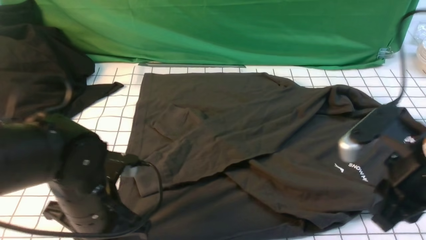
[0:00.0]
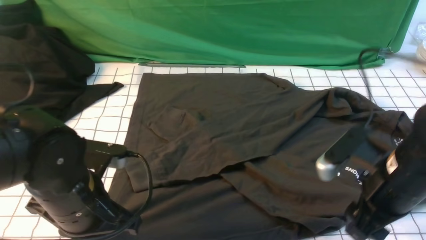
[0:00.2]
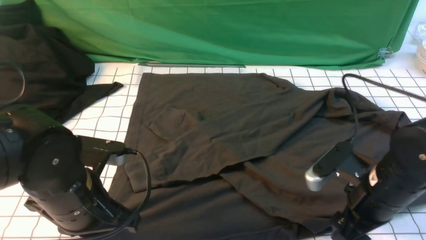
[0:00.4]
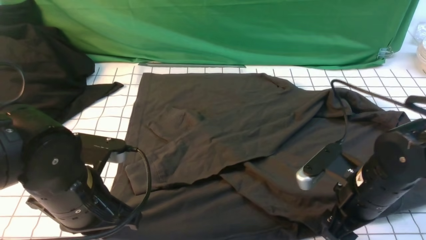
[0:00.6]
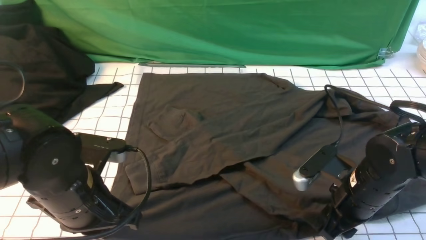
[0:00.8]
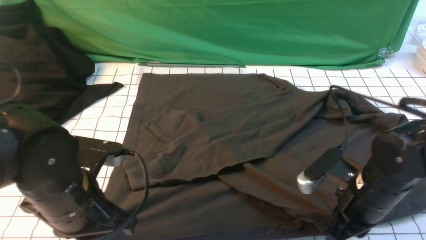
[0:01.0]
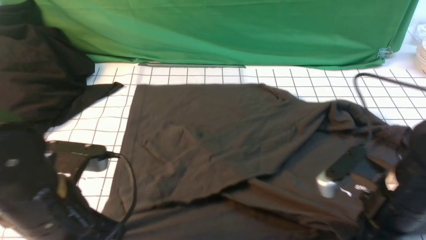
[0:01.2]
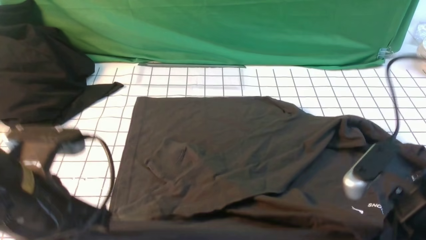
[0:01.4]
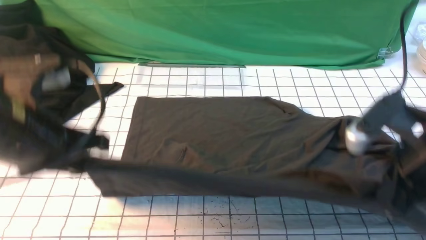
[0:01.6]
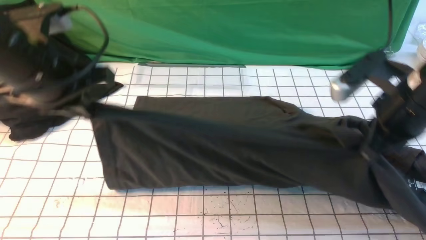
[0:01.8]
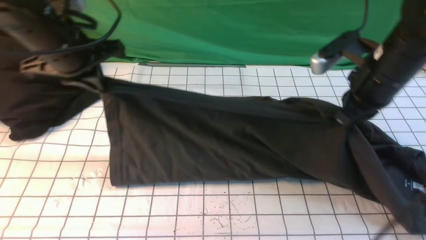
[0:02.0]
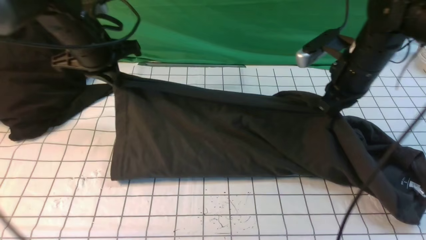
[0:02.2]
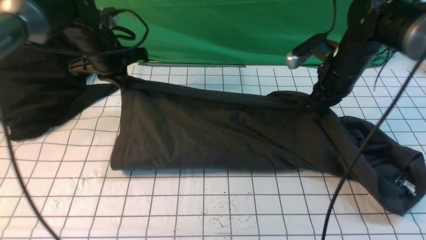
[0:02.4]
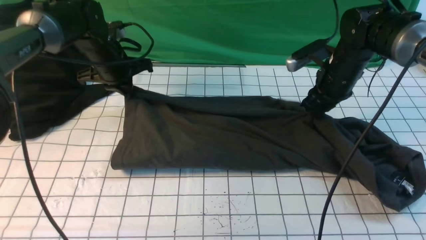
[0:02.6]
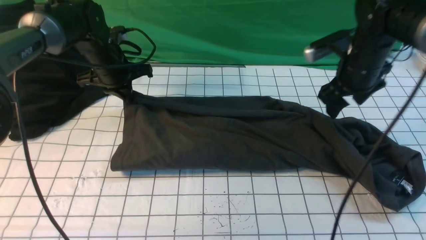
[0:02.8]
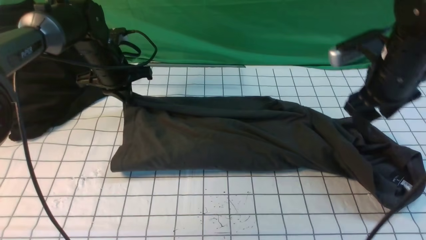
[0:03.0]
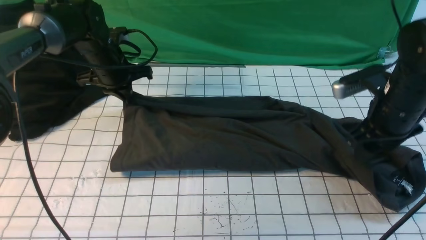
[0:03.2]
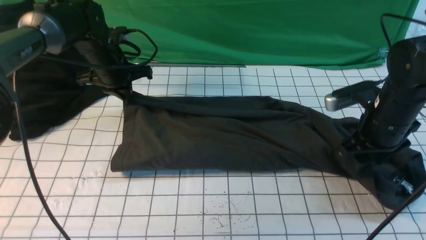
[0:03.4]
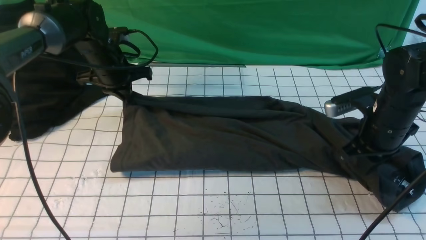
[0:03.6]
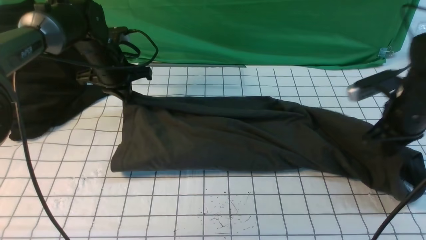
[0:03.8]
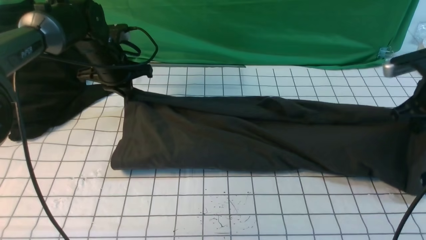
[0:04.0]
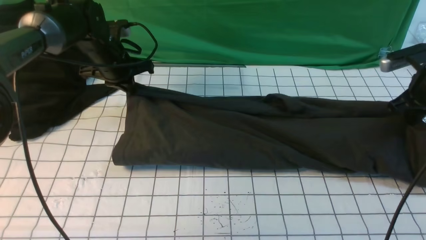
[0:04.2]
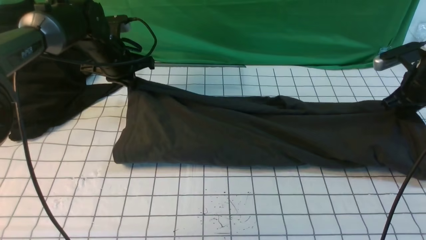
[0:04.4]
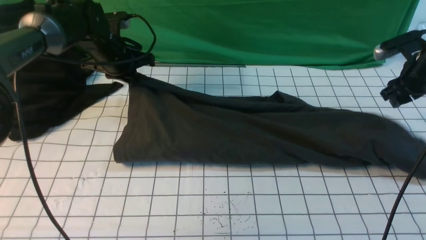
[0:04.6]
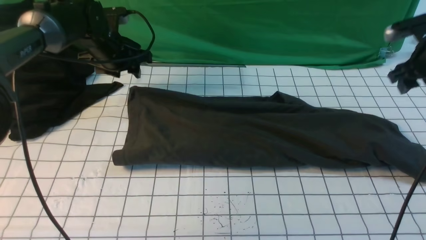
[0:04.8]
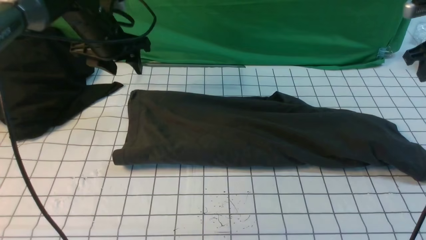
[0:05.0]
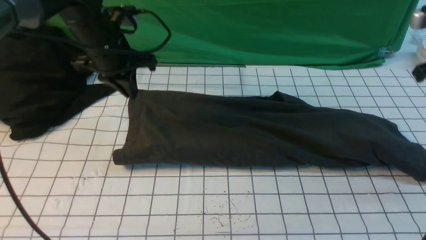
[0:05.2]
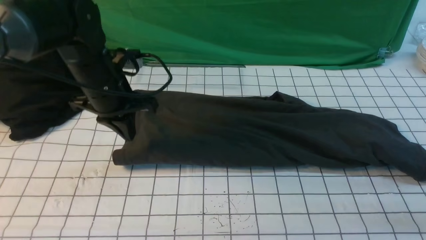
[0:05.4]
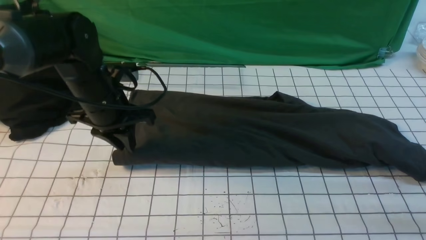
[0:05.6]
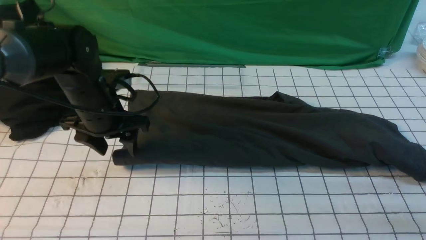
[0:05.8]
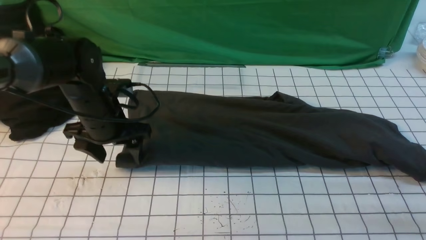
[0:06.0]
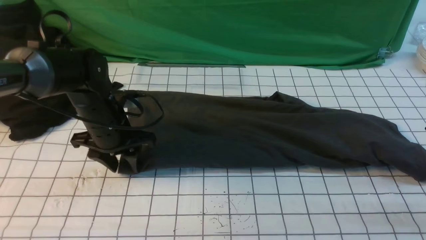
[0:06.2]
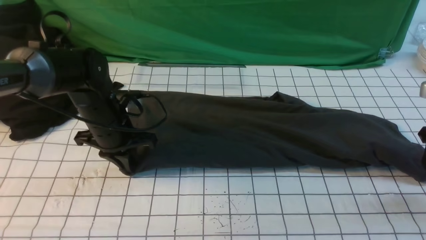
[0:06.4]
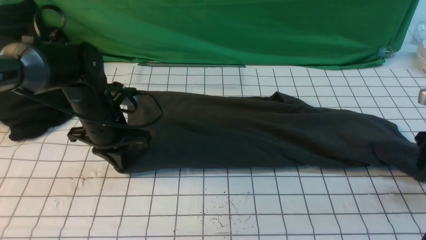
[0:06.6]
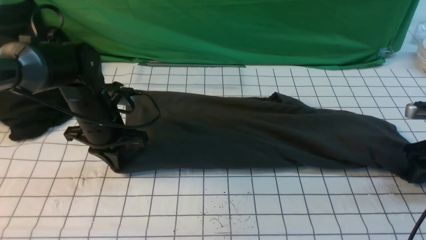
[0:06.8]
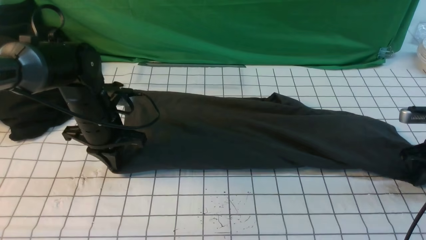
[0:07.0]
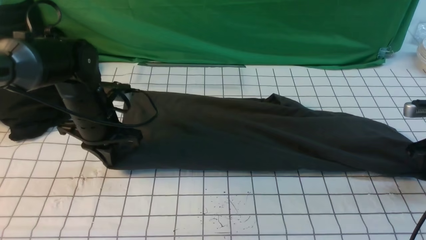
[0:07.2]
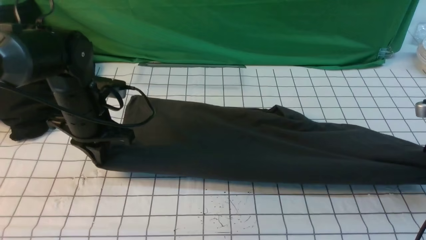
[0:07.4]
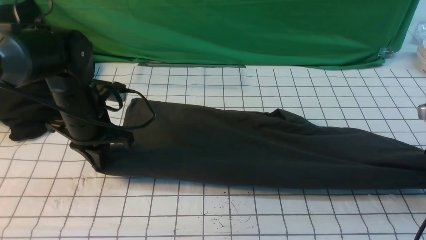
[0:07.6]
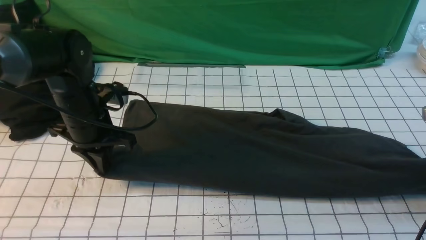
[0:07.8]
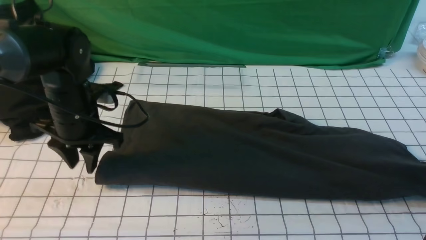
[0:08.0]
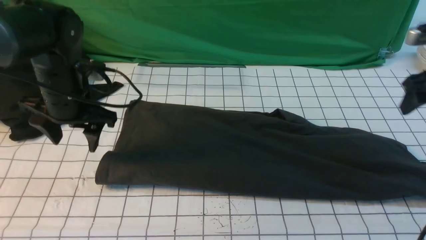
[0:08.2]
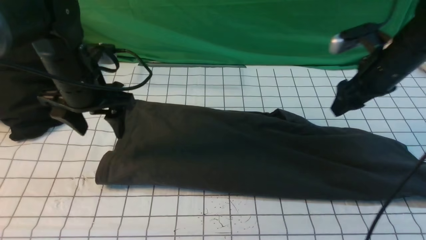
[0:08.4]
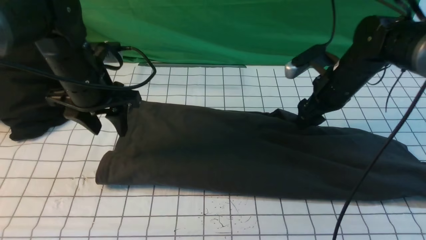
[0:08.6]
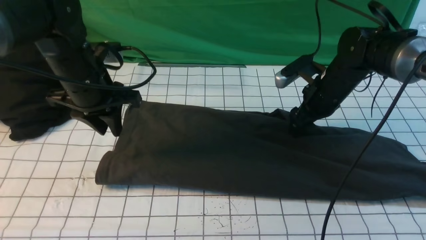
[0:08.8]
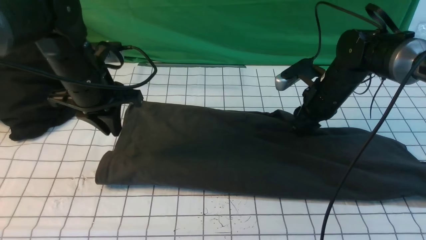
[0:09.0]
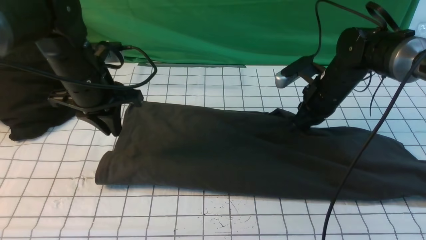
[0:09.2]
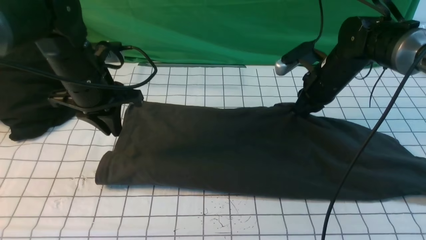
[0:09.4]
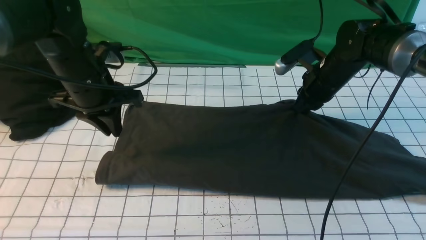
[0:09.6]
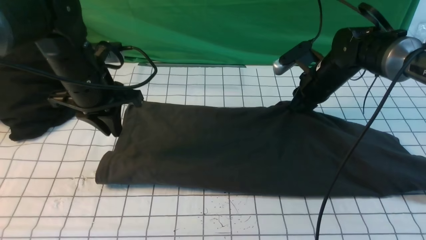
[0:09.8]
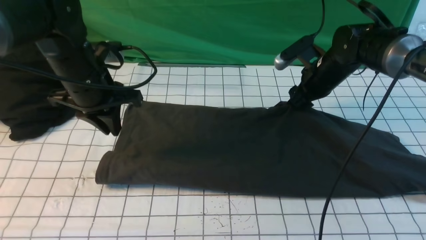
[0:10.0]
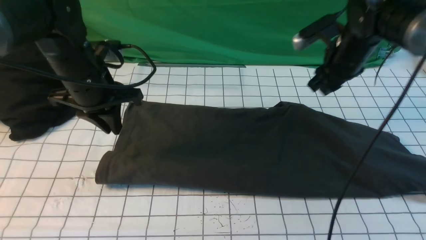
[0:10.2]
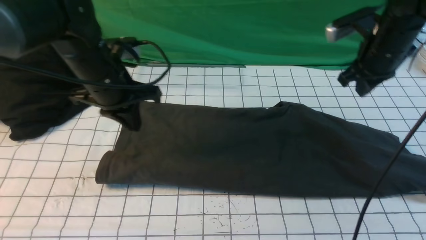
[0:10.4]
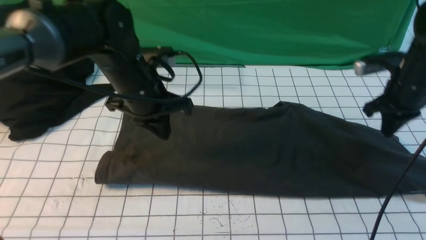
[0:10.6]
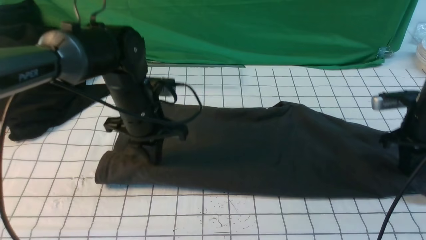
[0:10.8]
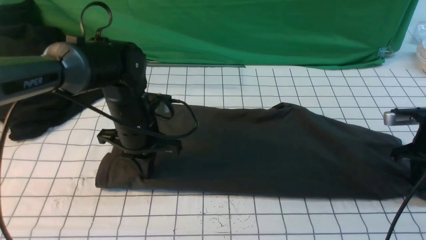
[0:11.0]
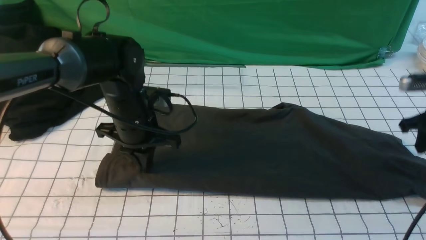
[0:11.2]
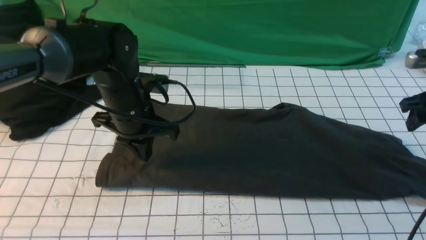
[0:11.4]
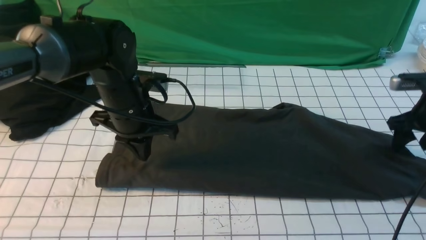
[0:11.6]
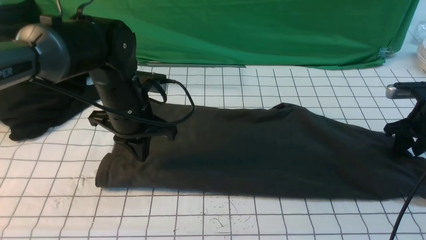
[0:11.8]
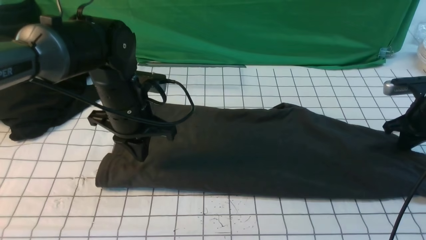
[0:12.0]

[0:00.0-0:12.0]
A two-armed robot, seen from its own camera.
Step, 0:01.4 to 0:04.8: use both arms to drag the lower edge of the fabric forward and fold it over the upper edge.
0:00.0 to 0:01.6: The right gripper reaches some 10 cm downward, then returns, and closes its fingers. Meanwhile the left gripper moves upward, some 15 cm.
0:01.6 to 0:03.0: The left gripper heads forward and downward, covering approximately 30 cm; the right gripper heads forward, covering some 15 cm, and opens.
0:03.0 to 0:04.4: The right gripper travels to the right and forward by some 15 cm, and closes its fingers.
0:04.4 to 0:06.0: Both grippers travel together backward, about 15 cm. The left gripper opens up.
0:06.0 to 0:07.6: The left gripper closes. Meanwhile the right gripper moves downward, about 5 cm, and opens and closes again.
0:07.6 to 0:09.0: The left gripper moves upward, approximately 5 cm, and opens, then closes once more; the right gripper goes some 20 cm to the left, and opens, then closes once more.
0:09.0 to 0:10.4: The right gripper travels to the right and upward by approximately 10 cm.
0:10.4 to 0:12.0: The right gripper shifts some 15 cm to the right and downward, and opens, then closes again.

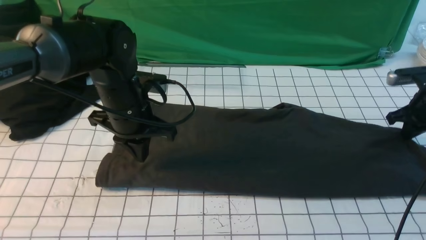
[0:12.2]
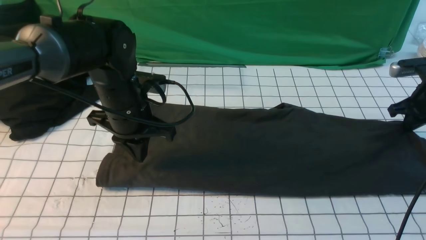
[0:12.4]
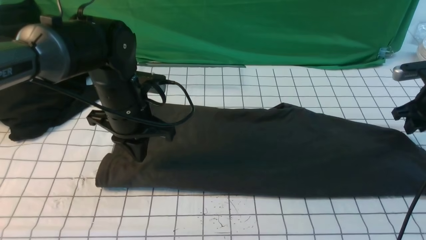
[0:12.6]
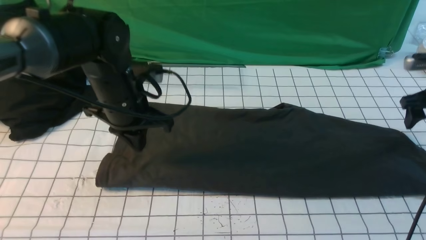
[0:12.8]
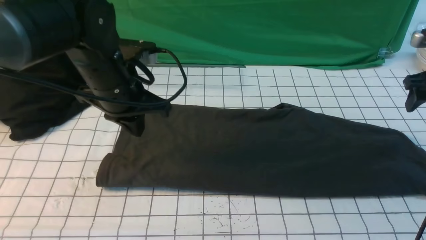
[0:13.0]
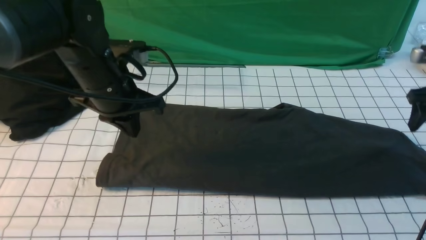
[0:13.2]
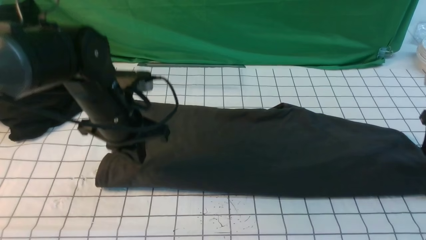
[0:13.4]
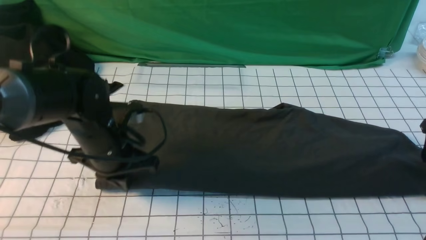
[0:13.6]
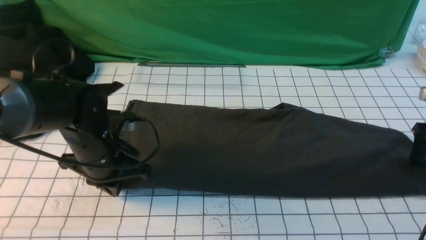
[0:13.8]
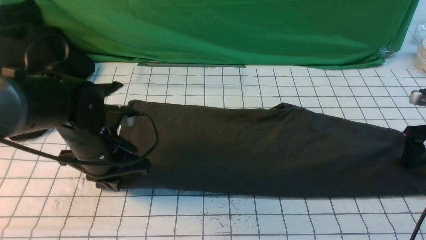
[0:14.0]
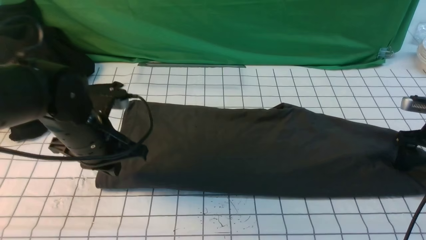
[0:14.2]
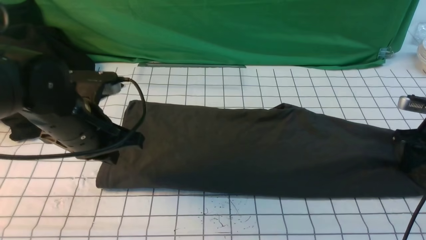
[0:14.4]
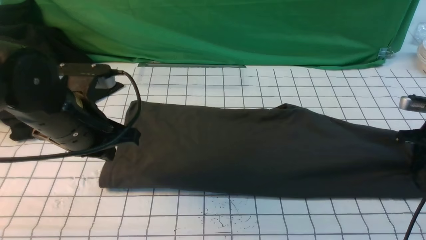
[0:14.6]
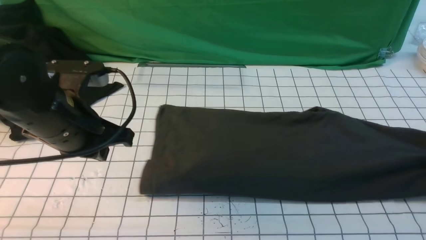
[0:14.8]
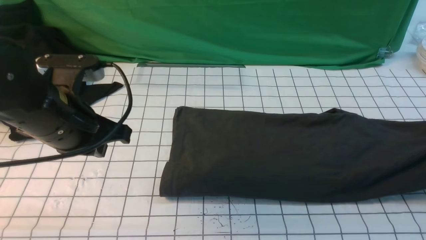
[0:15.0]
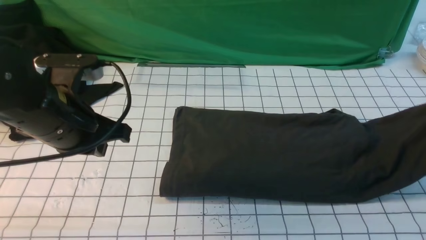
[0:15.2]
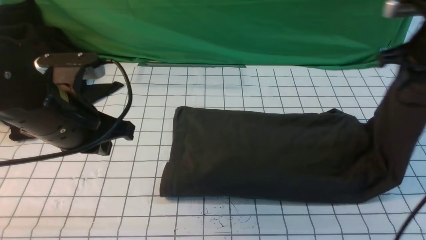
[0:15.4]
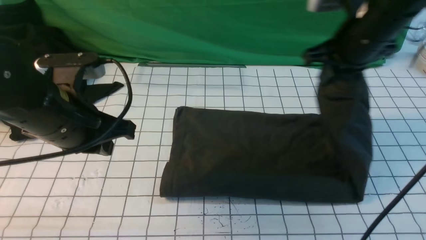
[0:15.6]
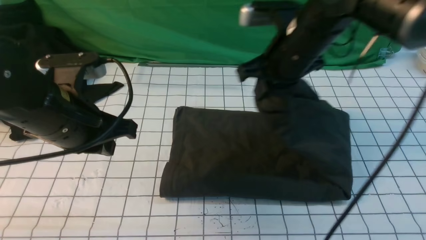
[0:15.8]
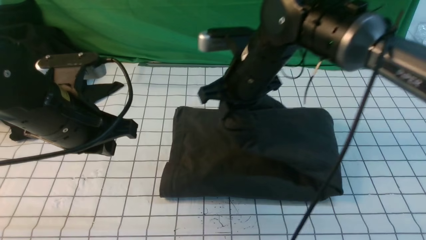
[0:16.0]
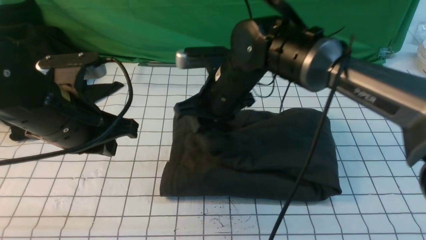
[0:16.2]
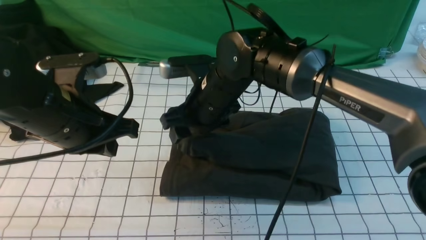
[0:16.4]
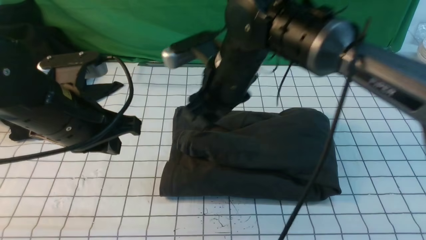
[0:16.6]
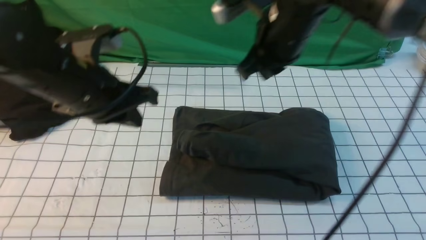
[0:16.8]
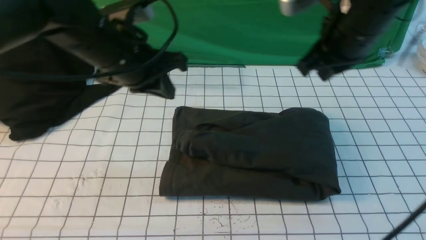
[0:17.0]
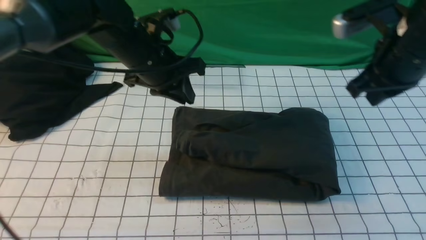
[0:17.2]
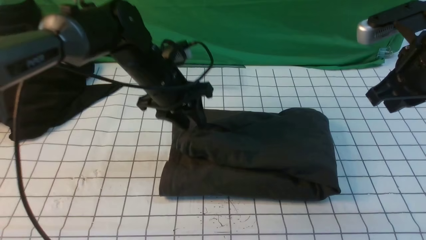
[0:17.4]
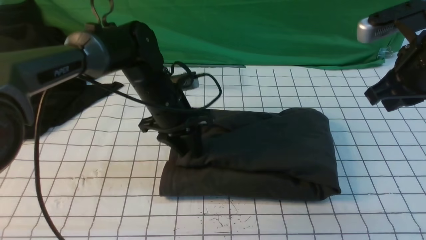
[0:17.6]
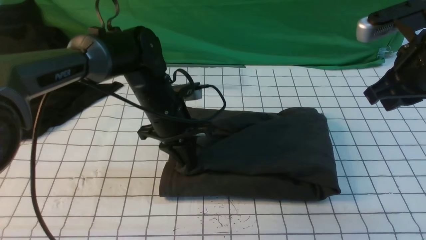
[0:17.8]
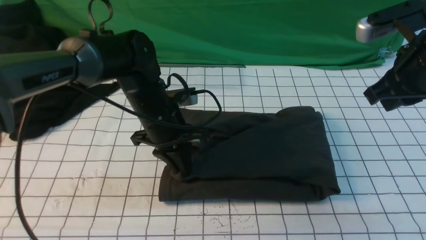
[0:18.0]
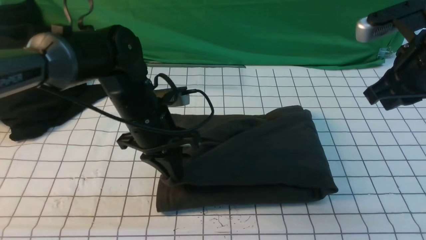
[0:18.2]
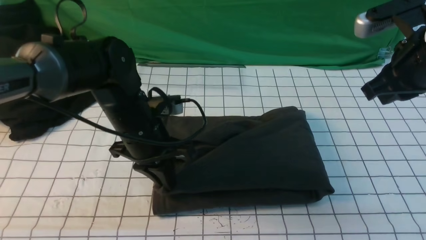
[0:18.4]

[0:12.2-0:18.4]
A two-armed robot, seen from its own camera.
Step, 0:12.2 to 0:14.8: use the right arm to clamp the right edge of the fabric.
Step, 0:15.0 to 0:16.8: use the right arm to drag the right edge of the fabric to the left and folds it over the left edge.
0:12.2 to 0:13.8: The left gripper shifts by roughly 5 cm. The right gripper shifts by some 5 cm, and opens up.
0:13.8 to 0:15.4: The left gripper is displaced upward by about 10 cm, while the right gripper goes roughly 20 cm to the left and upward, and closes up.
0:15.4 to 0:16.8: The left gripper changes place by some 5 cm. Meanwhile the right gripper is displaced to the left by roughly 15 cm, and opens, then closes again.
0:16.8 to 0:18.4: The right gripper heads to the right, covering about 15 cm. The left gripper goes about 10 cm downward, and opens, then closes once more.
